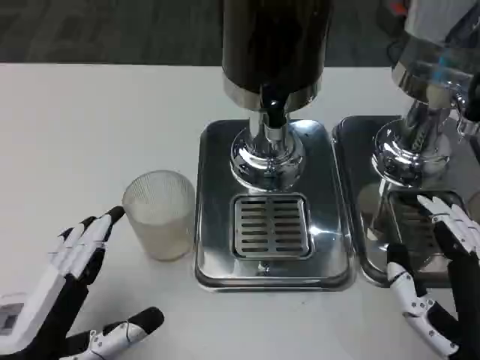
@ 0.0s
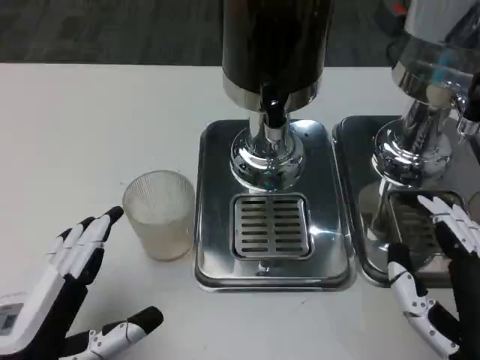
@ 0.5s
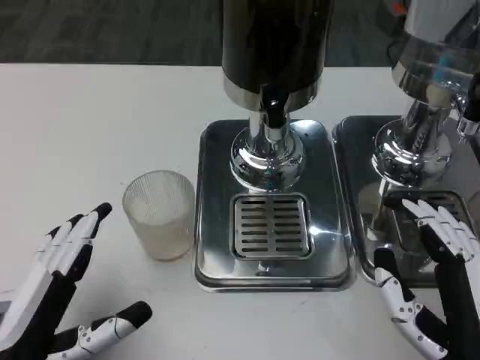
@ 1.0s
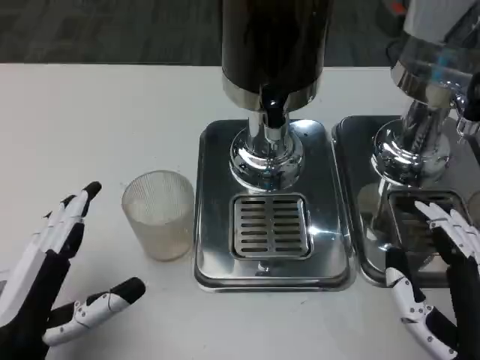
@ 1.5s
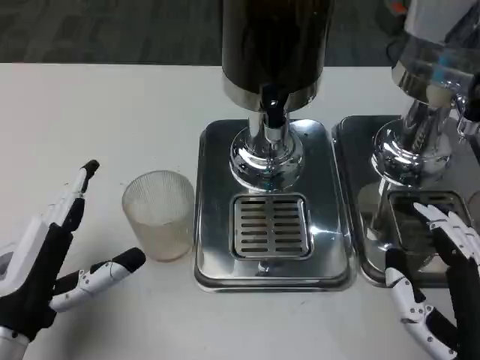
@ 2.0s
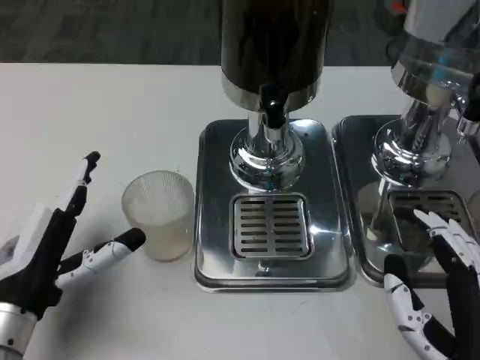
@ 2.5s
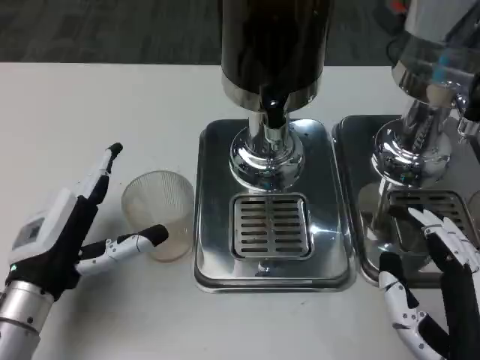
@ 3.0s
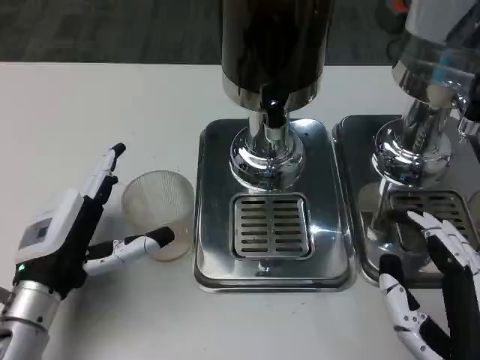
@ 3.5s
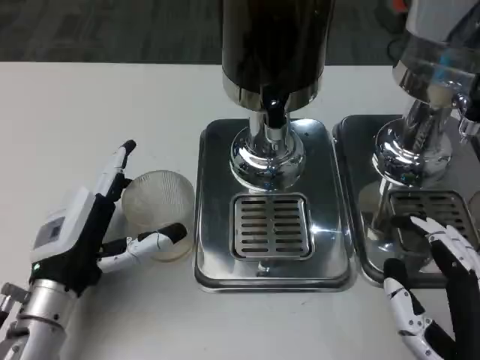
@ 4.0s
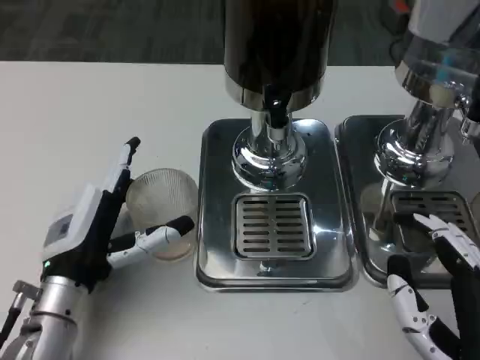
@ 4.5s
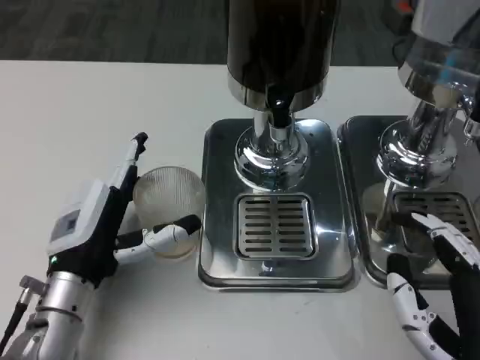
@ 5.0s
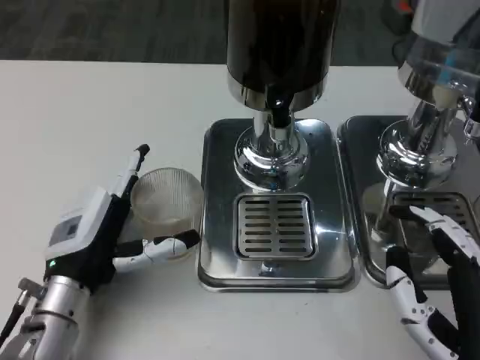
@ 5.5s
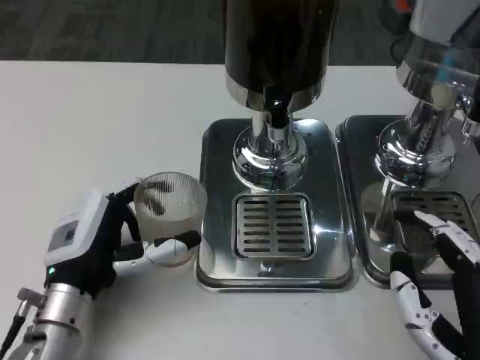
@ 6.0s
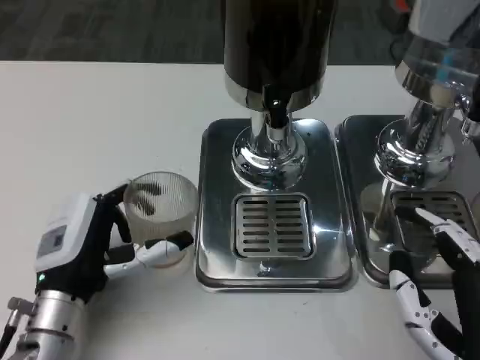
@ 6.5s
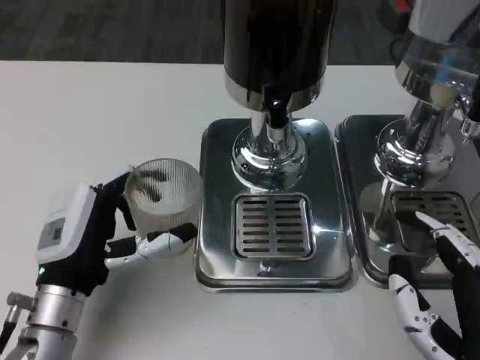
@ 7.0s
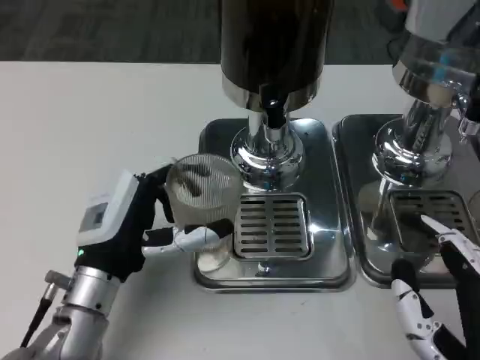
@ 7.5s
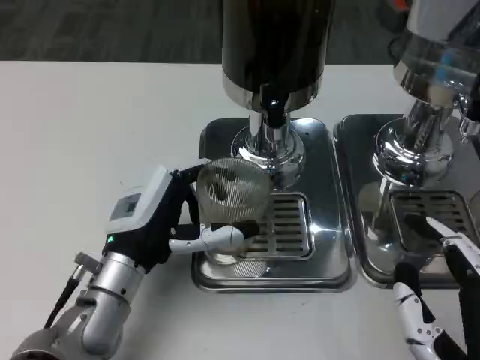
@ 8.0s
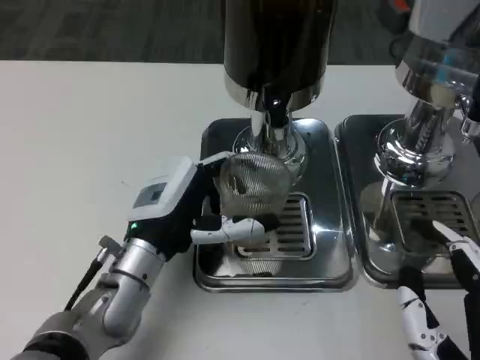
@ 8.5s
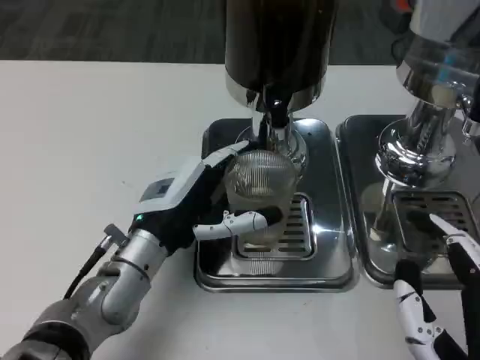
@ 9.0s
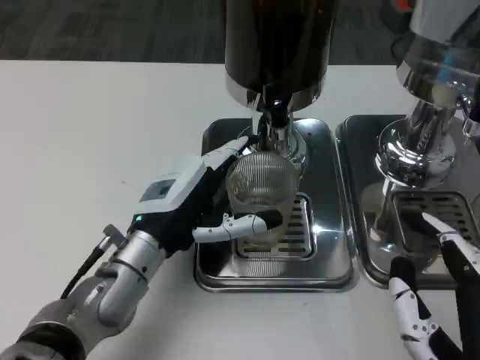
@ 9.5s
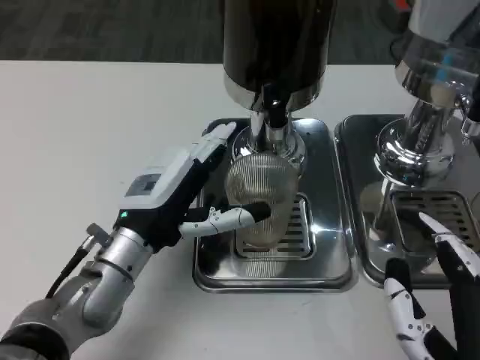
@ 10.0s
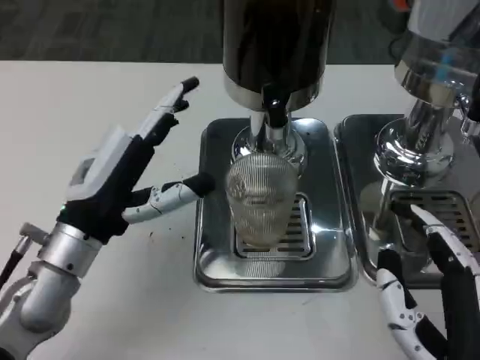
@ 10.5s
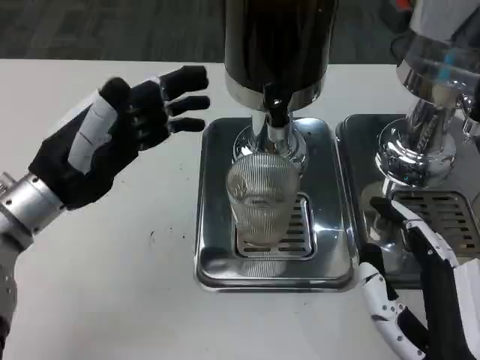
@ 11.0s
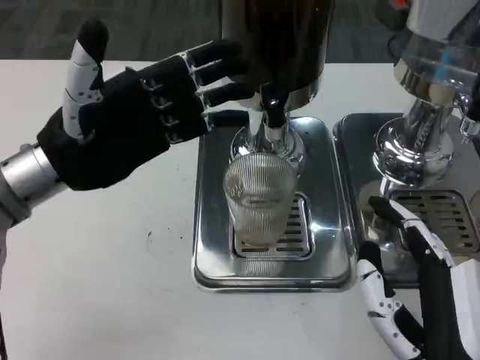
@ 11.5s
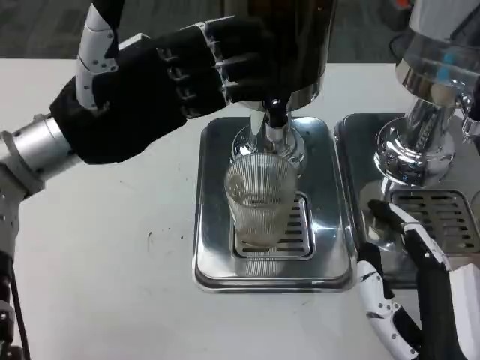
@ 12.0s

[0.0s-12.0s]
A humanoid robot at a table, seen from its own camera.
Task of the whole recording: Grasp the cup under the faucet to collect the drink, then remove the cup.
0.0s to 2.0s: The left hand moves forward, about 5 cm.
2.0s to 4.0s: The left hand heads forward, covering roughly 5 cm.
4.0s to 6.0s: The hands make only small movements.
6.0s to 8.0s: The left hand ends up some 5 cm from where it was.
8.0s to 10.0s: The hands make only small movements.
10.0s to 12.0s: The left hand moves upward, to the left and forward, some 15 cm.

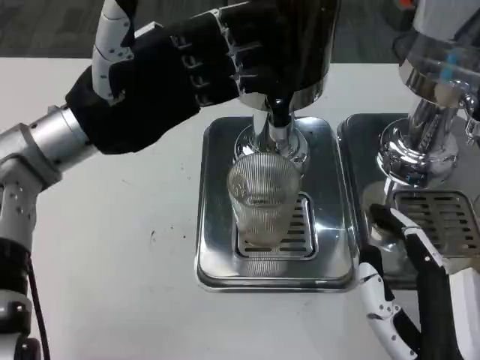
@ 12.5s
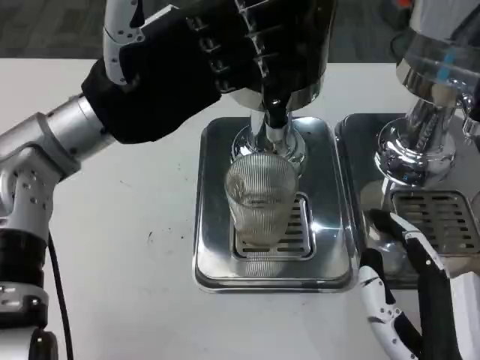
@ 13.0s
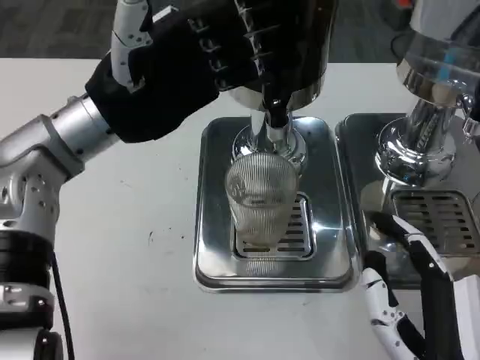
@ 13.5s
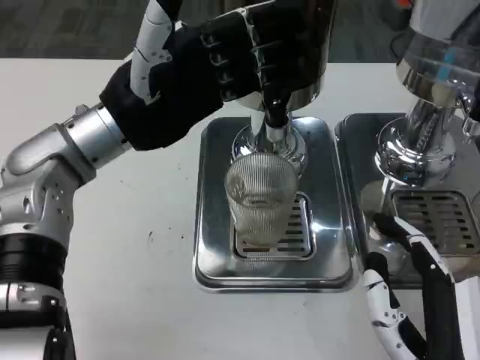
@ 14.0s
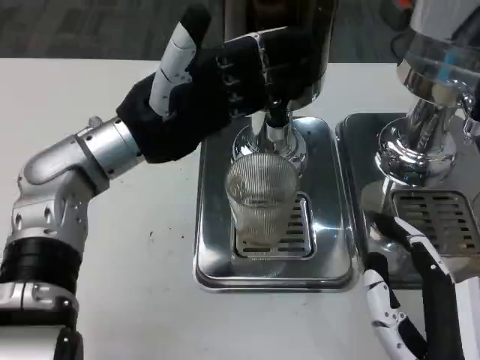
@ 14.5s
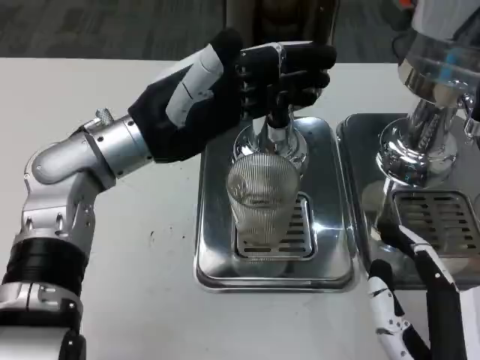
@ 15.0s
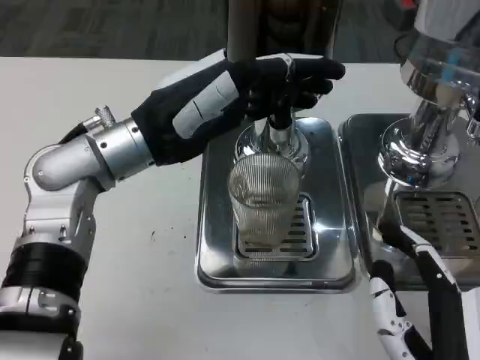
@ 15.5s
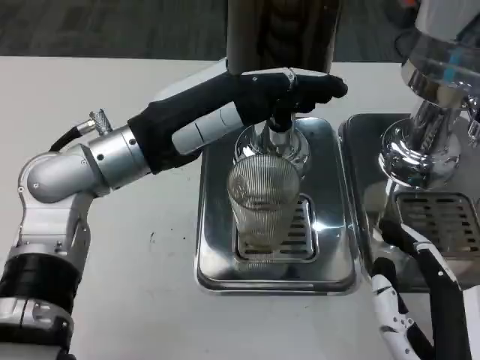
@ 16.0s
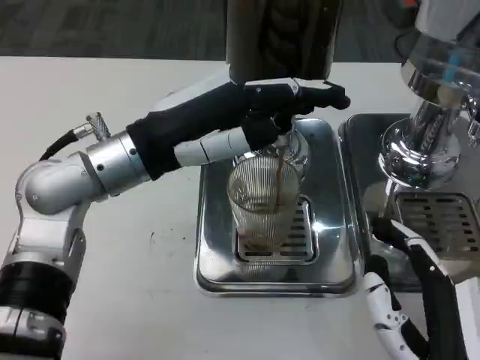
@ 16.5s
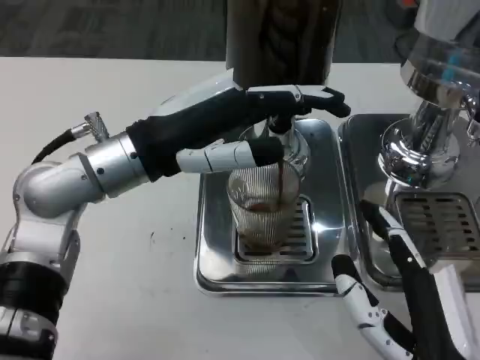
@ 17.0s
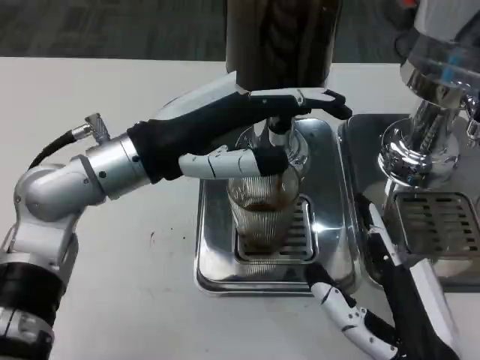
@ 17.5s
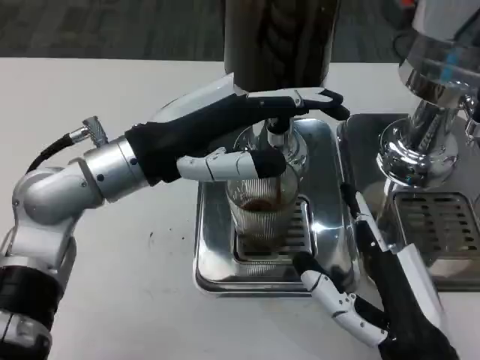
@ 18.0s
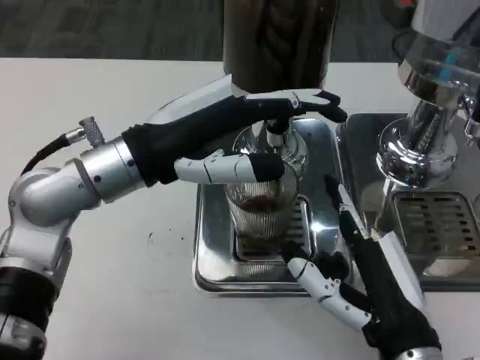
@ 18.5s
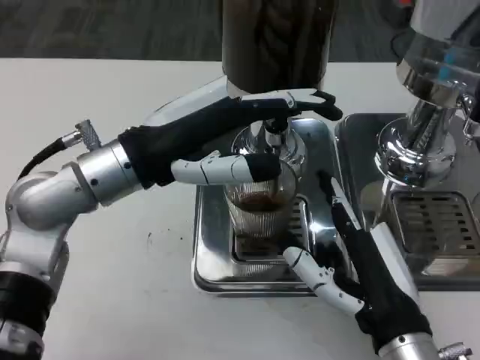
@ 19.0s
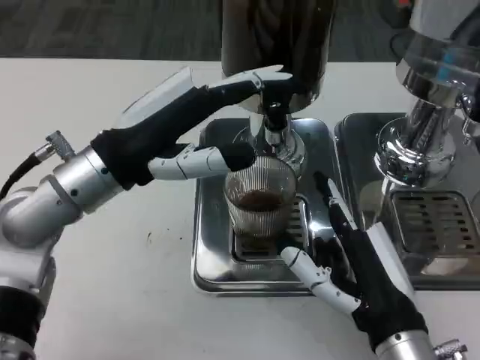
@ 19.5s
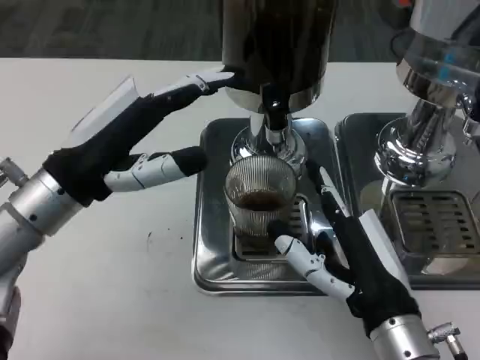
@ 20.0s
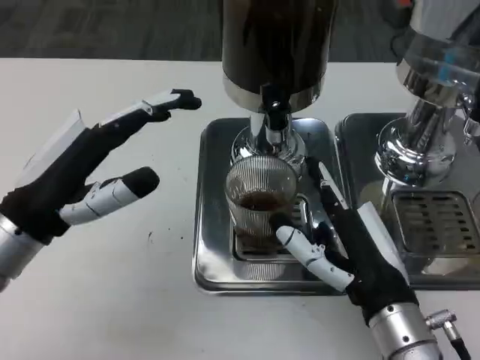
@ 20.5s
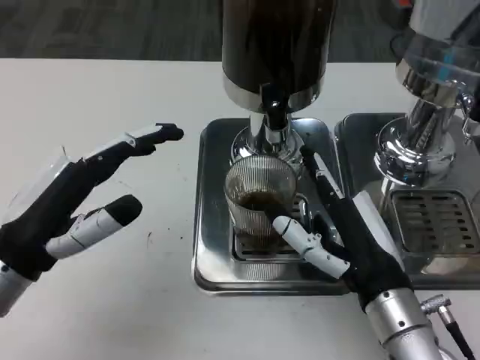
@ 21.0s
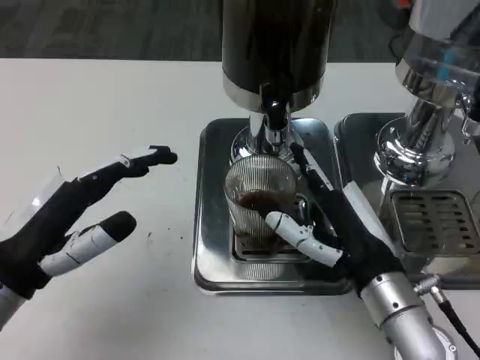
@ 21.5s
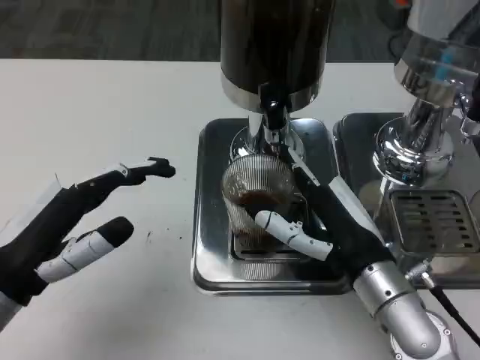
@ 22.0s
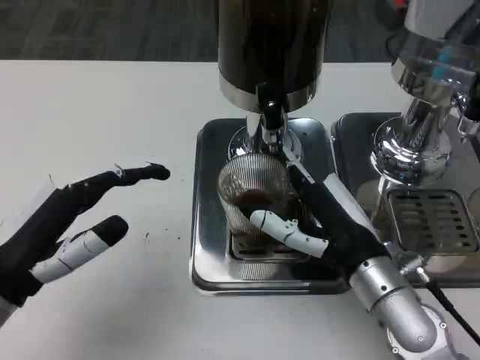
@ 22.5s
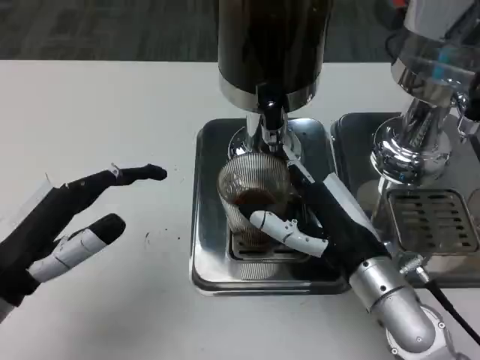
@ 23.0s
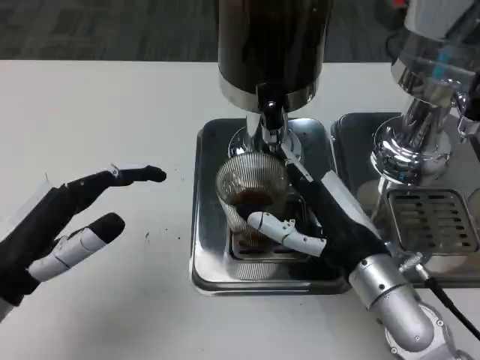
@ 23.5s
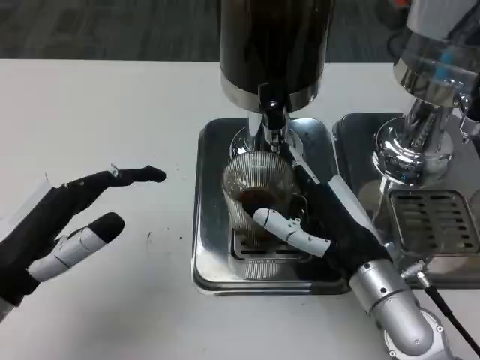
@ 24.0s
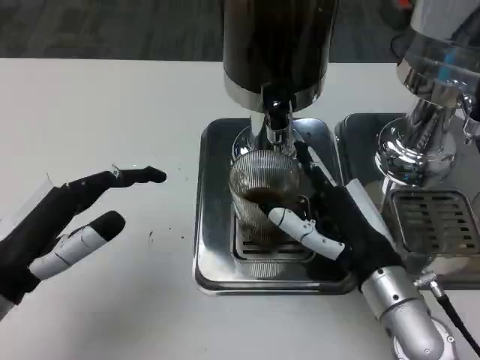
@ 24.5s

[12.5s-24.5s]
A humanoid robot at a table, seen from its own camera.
Task of the whole recording: Grasp the cup under the faucet to collect the drink, then remove the cup.
16.5s to 18.5s: The right hand is displaced forward by roughly 5 cm.
18.5s to 20.5s: The left hand shifts about 10 cm to the left and backward.
20.5s to 22.5s: The left hand shifts by approximately 5 cm. Meanwhile the right hand travels forward by about 5 cm.
22.5s to 24.5s: The hands make only small movements.

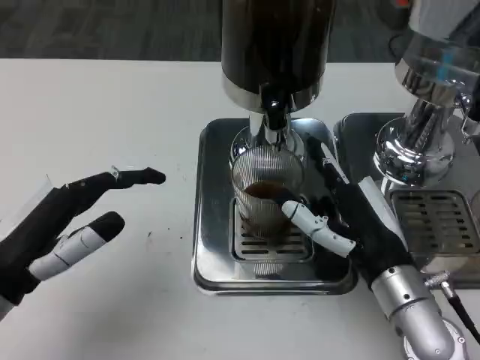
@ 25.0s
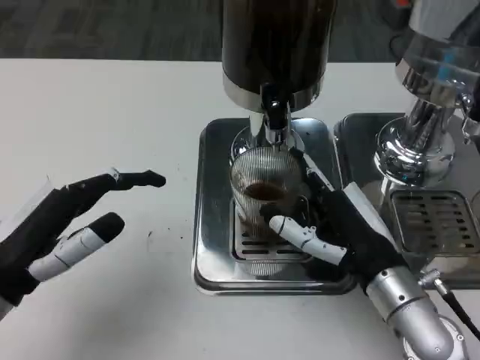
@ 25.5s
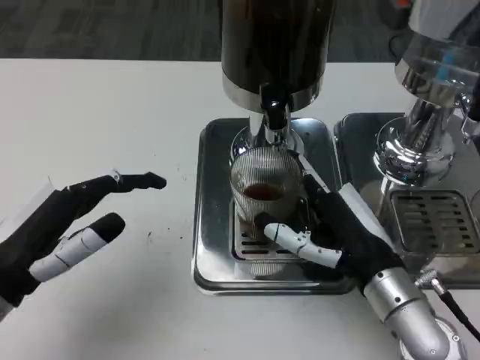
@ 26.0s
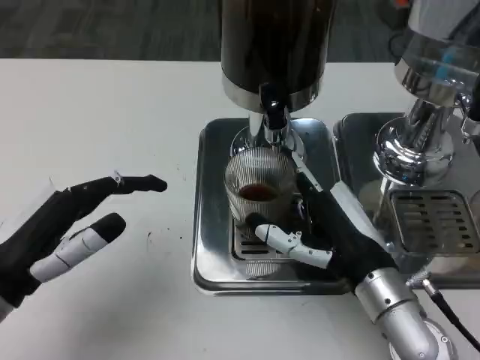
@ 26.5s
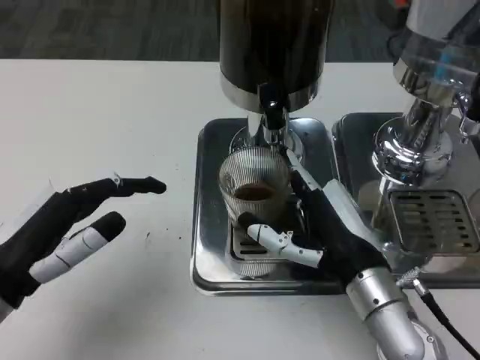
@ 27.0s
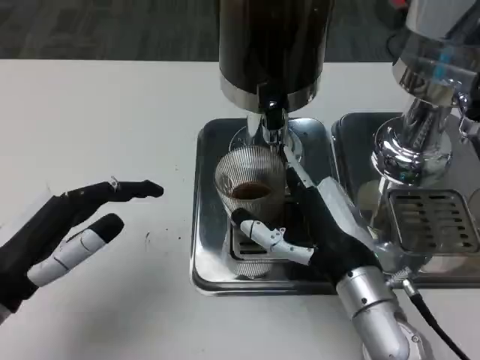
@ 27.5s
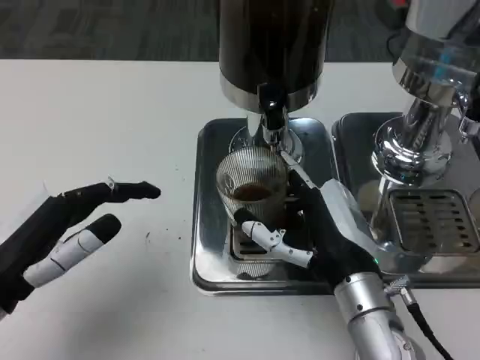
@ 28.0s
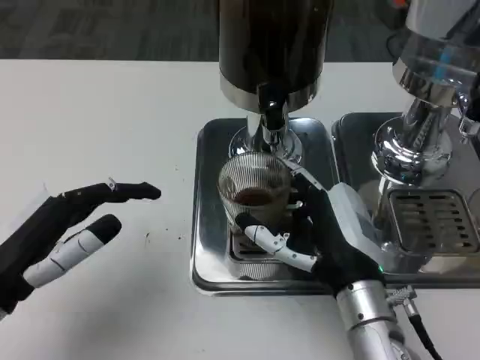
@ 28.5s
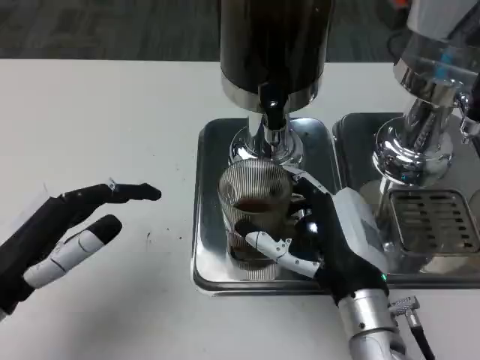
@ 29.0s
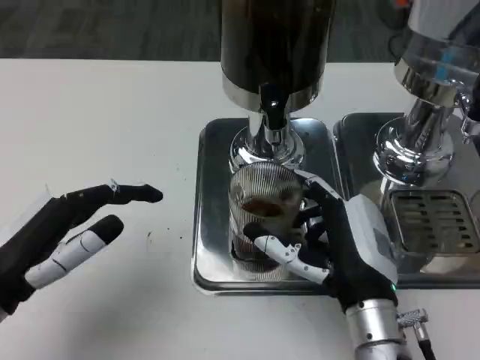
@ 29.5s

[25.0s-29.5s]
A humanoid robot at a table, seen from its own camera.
Task of the whole recording: Grasp the cup under the faucet to collect the drink, then remove the cup.
25.0s to 29.5s: The hands make only small movements.
